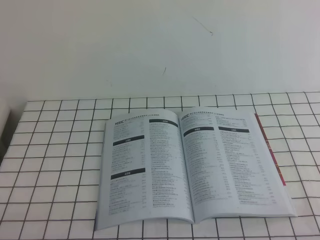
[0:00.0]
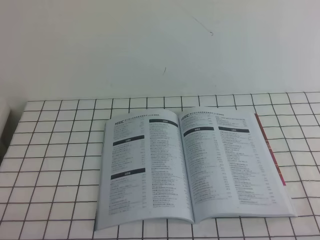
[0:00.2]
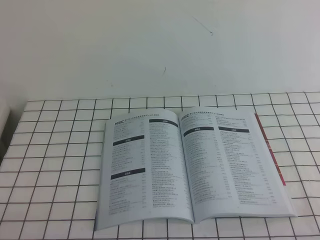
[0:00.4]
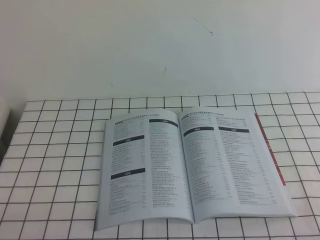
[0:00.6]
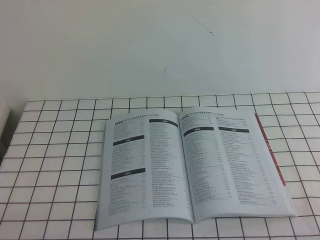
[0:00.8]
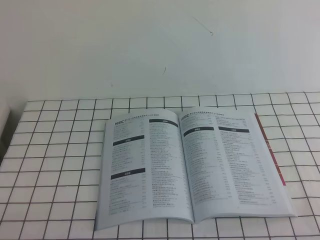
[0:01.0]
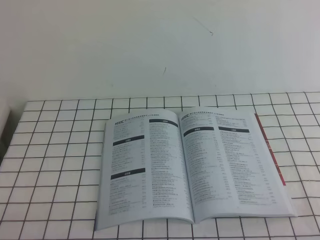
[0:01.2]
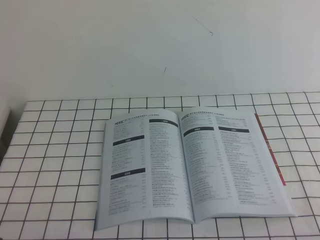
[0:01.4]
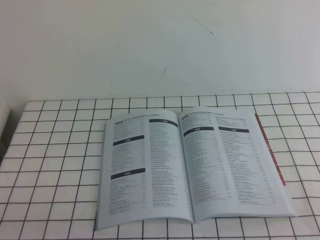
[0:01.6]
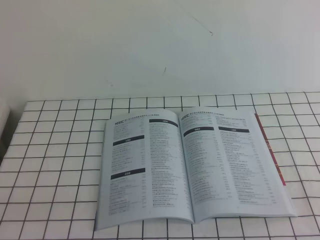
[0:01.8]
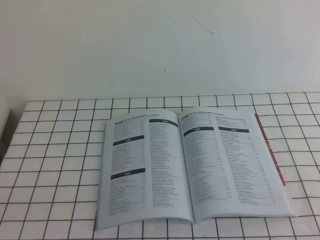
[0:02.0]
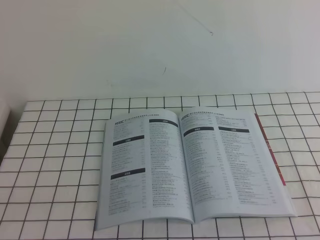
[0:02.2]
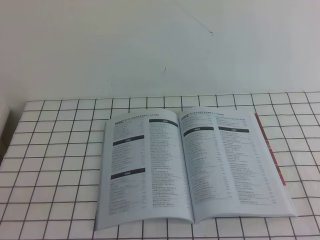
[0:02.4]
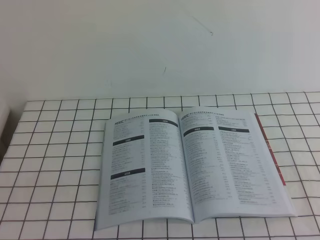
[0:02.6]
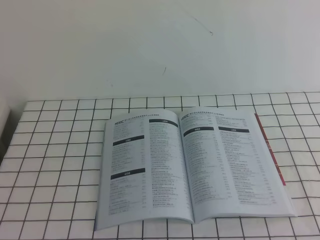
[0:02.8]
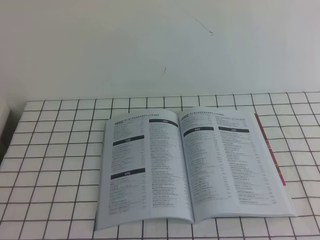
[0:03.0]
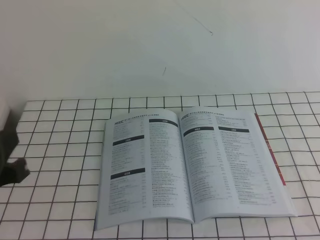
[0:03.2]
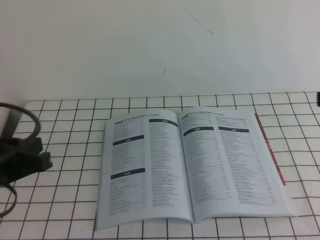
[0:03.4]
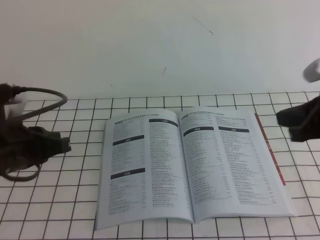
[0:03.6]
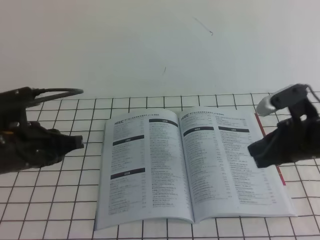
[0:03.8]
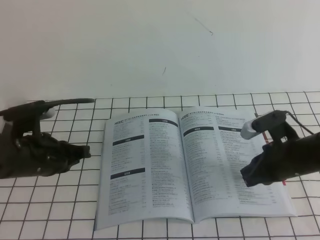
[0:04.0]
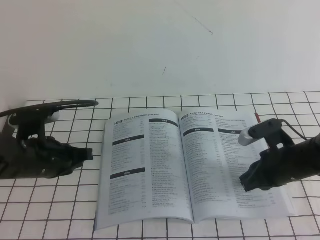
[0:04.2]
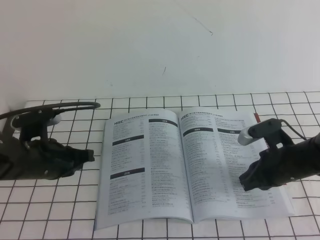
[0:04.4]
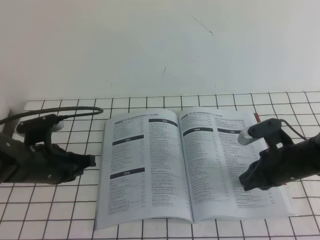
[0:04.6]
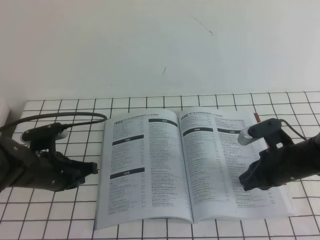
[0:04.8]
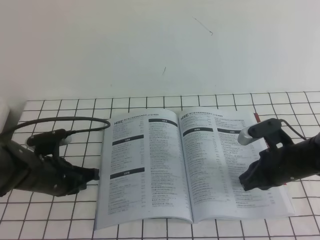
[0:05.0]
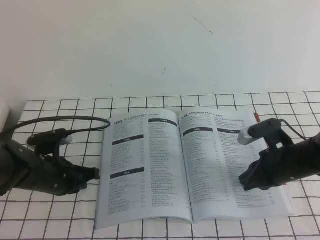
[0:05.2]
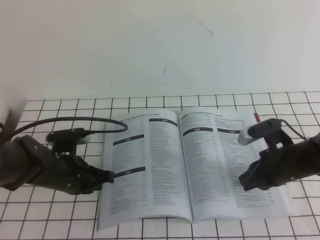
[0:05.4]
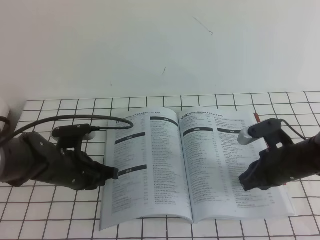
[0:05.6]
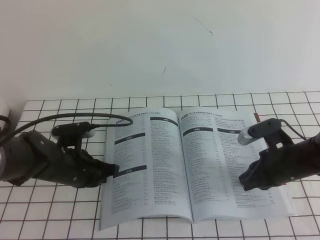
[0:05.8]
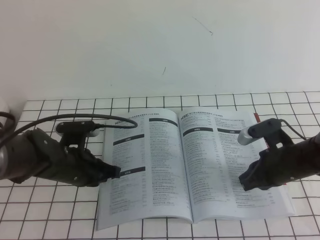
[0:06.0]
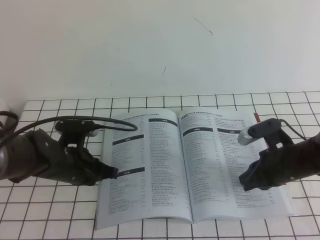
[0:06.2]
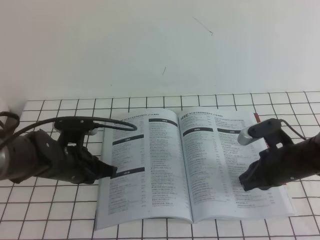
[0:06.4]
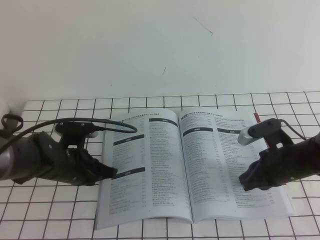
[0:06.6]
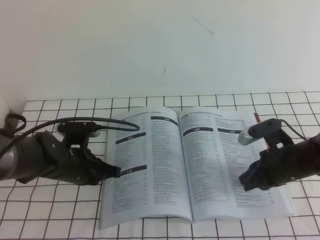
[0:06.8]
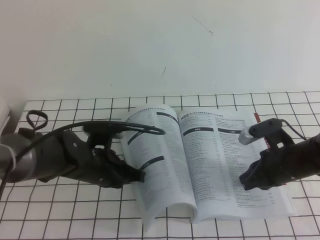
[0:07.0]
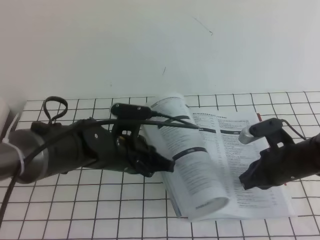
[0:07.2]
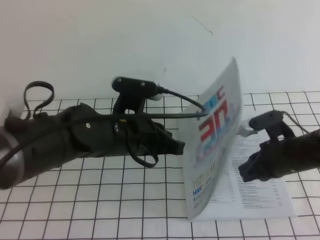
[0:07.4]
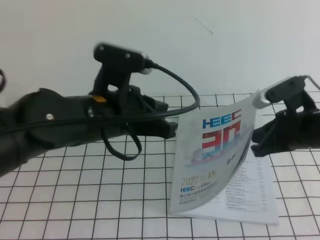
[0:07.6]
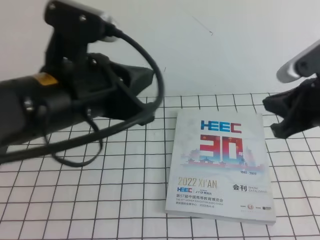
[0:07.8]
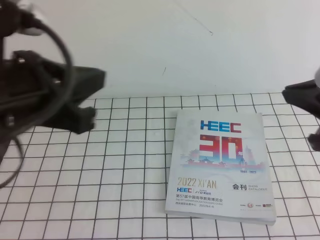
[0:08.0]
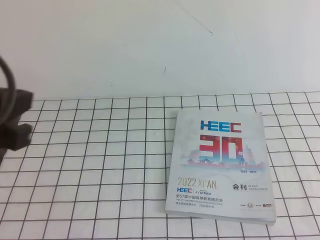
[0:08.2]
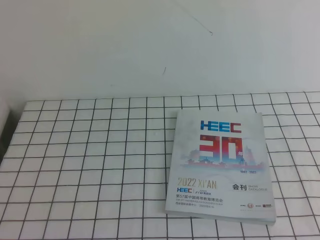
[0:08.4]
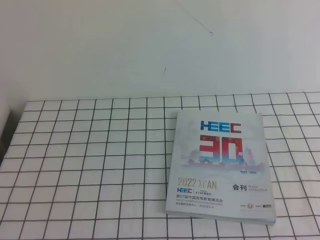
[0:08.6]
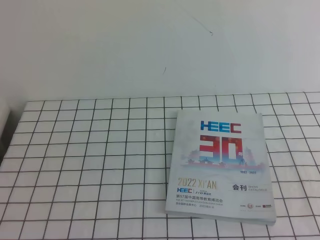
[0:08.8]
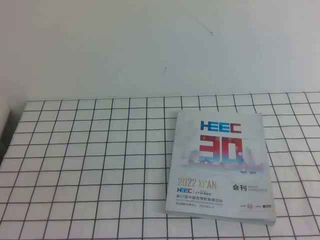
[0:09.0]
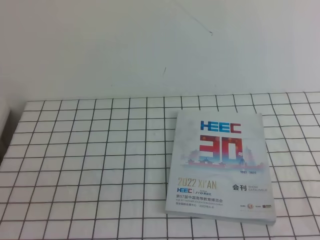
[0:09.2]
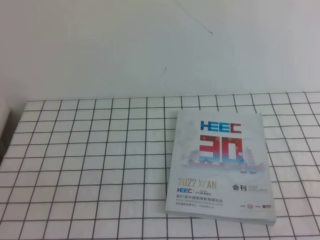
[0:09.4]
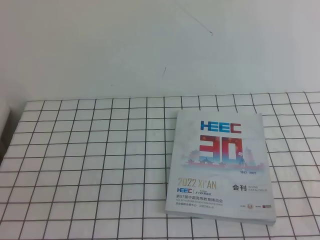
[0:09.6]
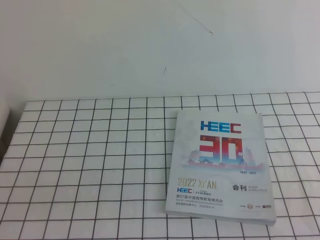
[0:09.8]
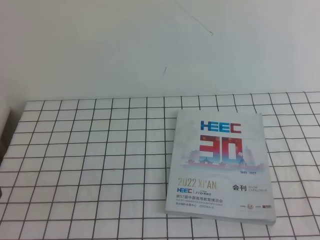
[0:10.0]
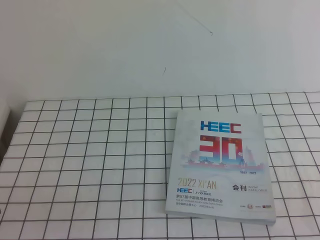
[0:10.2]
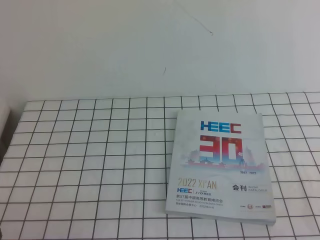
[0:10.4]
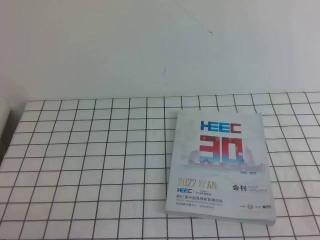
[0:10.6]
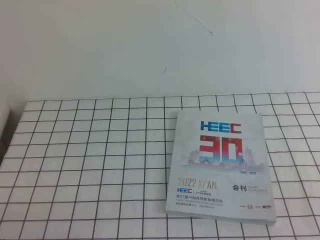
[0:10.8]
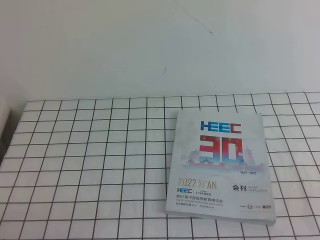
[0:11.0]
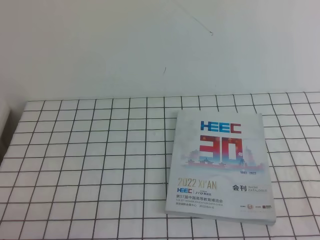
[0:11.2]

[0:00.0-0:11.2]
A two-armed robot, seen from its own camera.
Task of the whole recording: on the white tablecloth, hold the book with one hand and close it with the other.
0:01.6 to 0:03.2: The left gripper shifts about 15 cm upward and forward.
0:03.2 to 0:04.8: The two grippers go roughly 25 cm downward and forward.
0:04.8 to 0:06.4: The grippers stay close to where they were, moving slightly.
0:06.4 to 0:08.0: The right gripper travels upward by some 20 cm. Meanwhile the left gripper goes approximately 30 cm upward and backward.
0:08.0 to 0:09.6: The right gripper goes approximately 25 cm backward and to the right. Meanwhile the left gripper shifts about 20 cm downward, backward and to the left.
